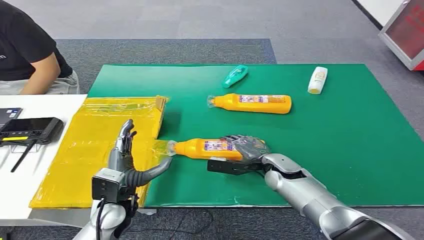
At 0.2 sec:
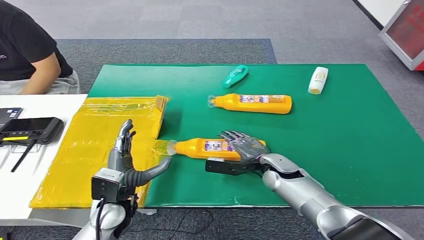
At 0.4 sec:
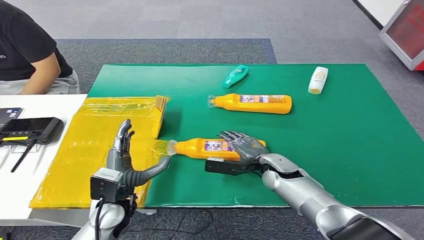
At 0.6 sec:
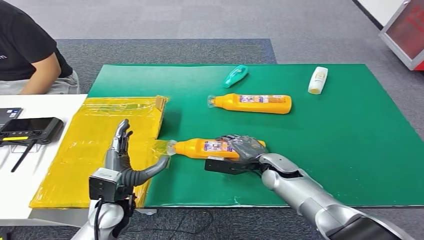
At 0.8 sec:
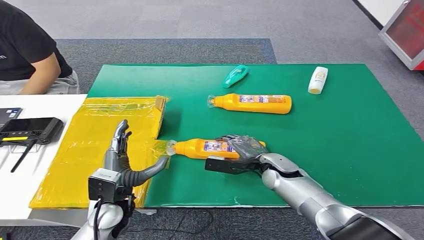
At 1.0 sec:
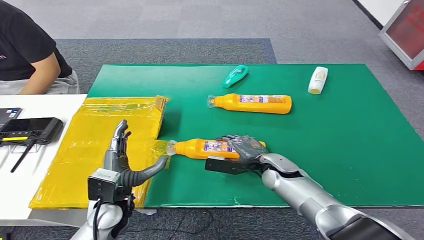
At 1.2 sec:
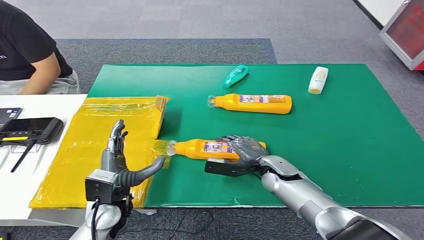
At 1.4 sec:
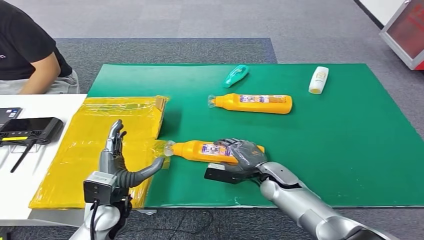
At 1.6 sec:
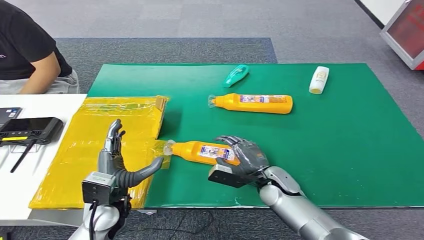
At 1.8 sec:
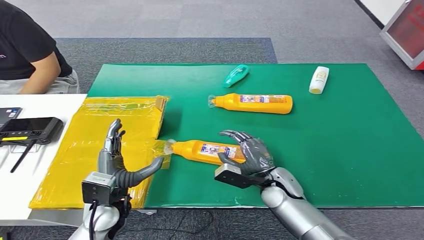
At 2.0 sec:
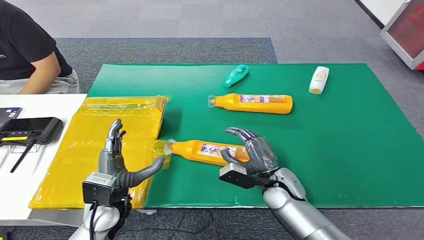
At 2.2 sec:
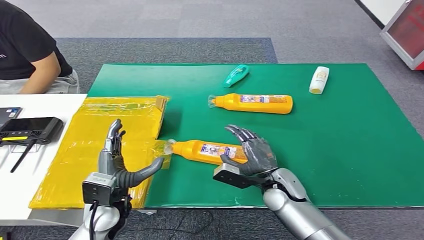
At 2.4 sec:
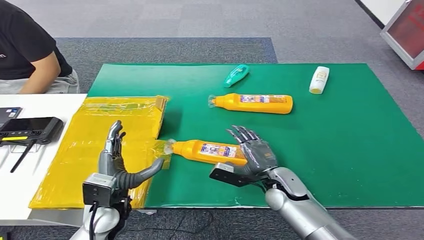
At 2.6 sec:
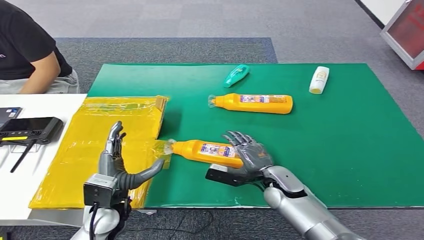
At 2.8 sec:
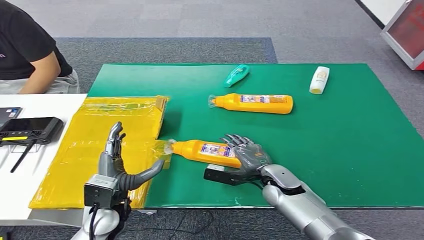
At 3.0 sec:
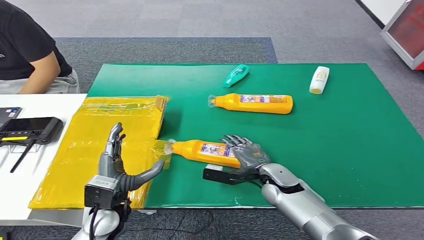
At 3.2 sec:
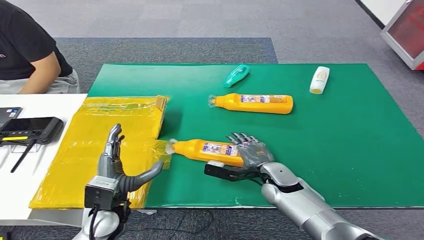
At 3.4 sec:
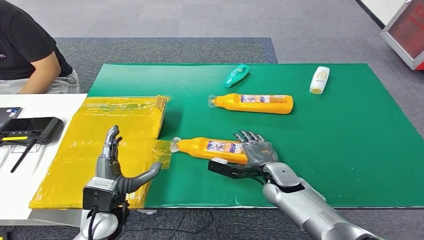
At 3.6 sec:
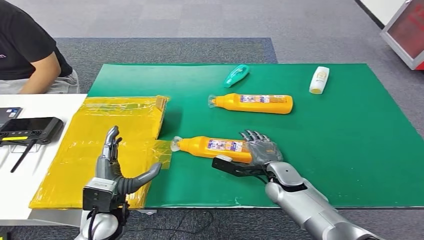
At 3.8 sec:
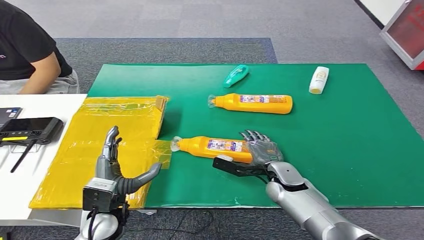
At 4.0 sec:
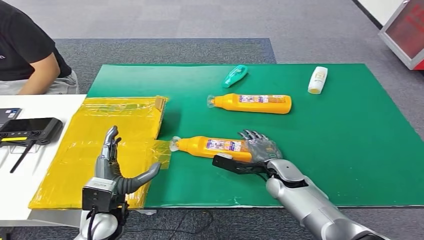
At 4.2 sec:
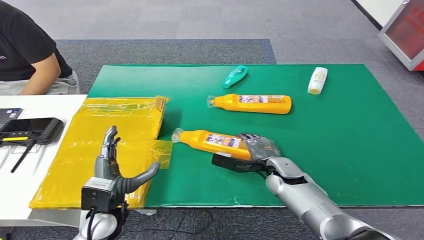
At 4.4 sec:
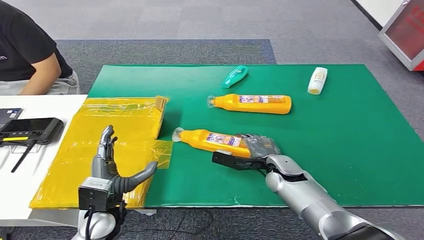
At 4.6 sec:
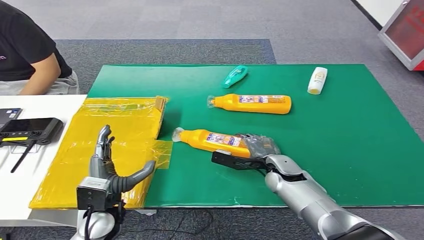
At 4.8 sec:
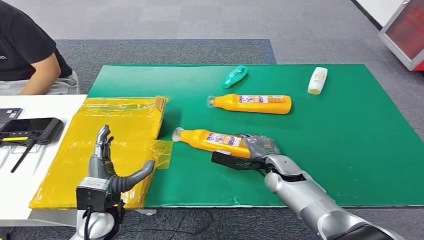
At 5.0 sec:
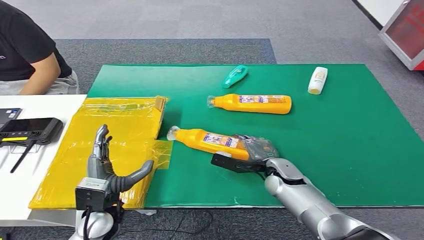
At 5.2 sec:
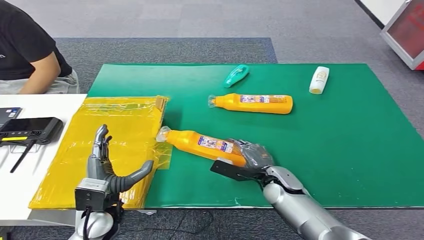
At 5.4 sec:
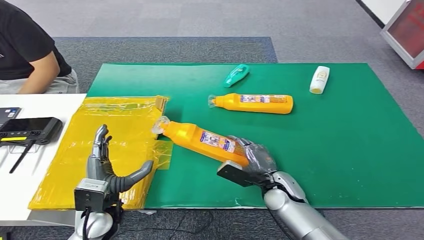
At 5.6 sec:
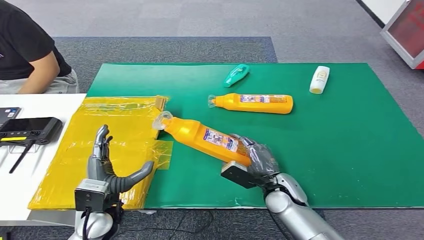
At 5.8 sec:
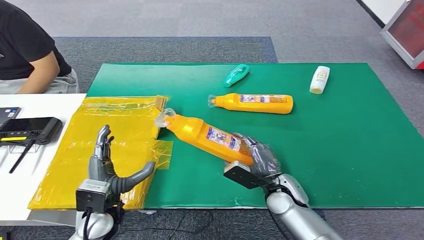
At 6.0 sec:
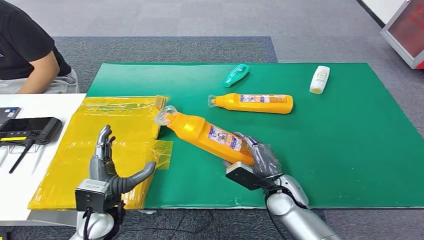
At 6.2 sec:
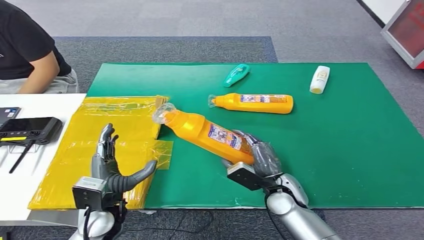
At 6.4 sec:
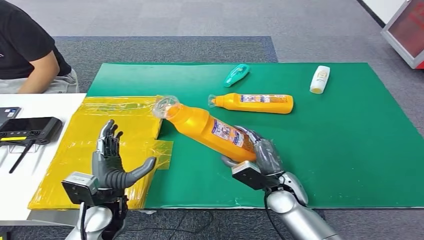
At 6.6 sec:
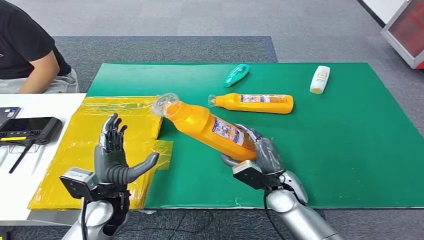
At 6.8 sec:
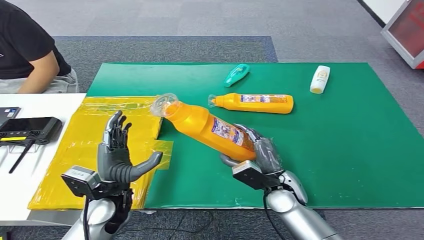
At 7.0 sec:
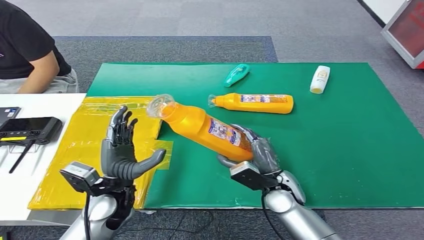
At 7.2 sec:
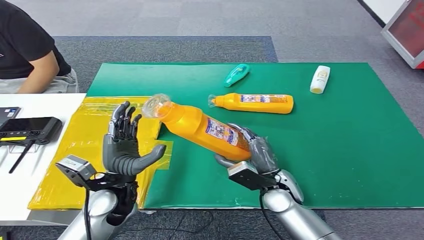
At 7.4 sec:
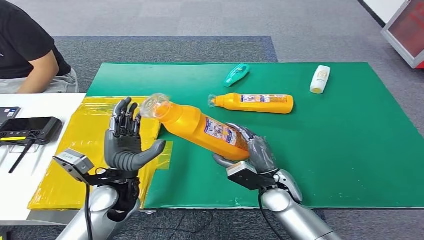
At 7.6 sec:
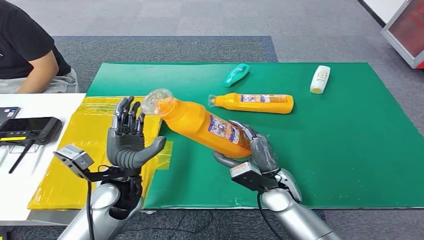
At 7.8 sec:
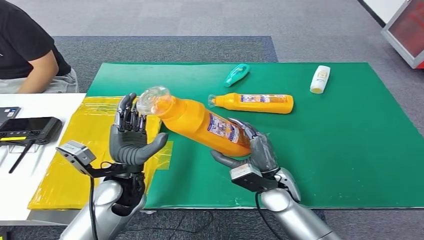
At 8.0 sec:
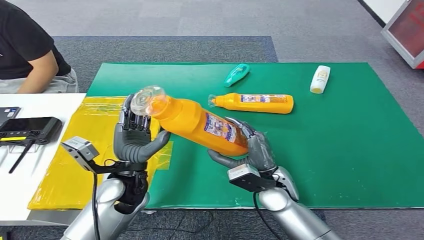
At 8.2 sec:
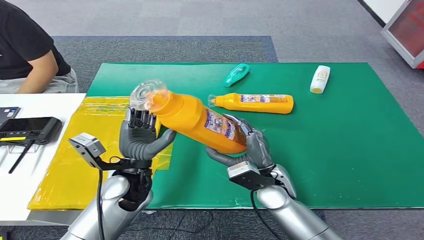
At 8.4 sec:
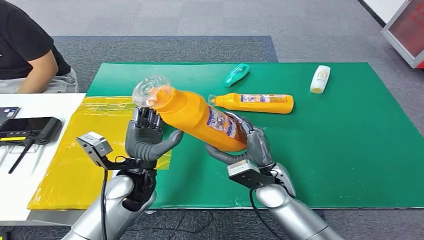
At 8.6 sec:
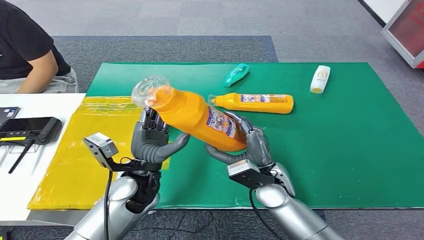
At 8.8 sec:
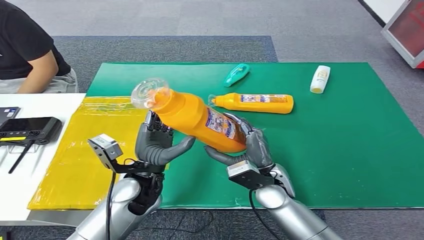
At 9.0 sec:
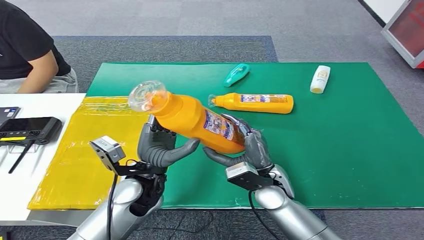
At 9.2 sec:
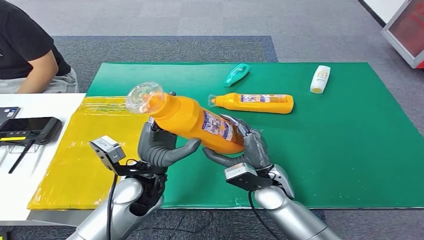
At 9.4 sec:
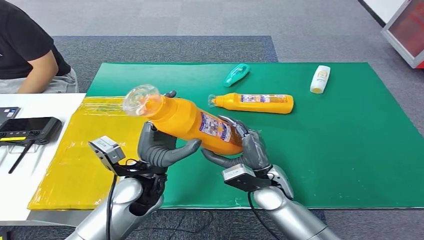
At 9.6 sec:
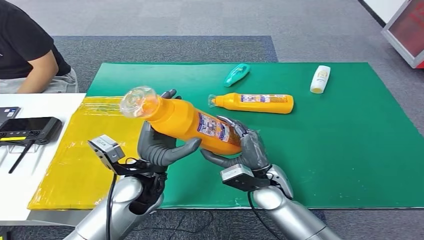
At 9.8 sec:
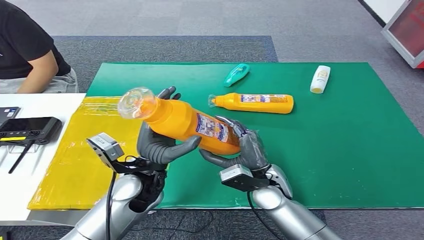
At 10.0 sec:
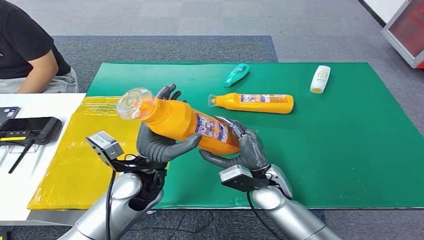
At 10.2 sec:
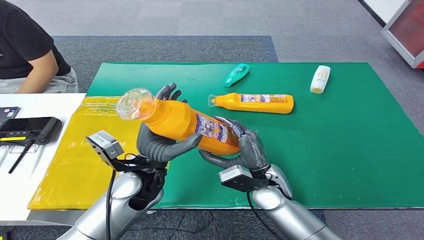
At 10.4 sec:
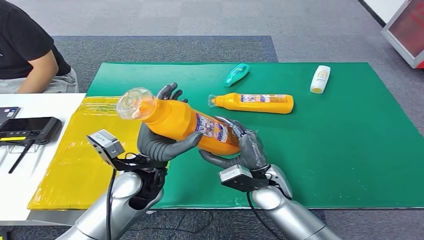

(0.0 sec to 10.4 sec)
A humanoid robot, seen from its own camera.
Step, 0.0 sec - 7.0 sec: Pick up the bottle from the table.
3.0 sec - 4.4 sec: The hands make only small movements.
4.4 sec - 6.0 sec: The right hand is displaced backward by about 5 cm.
6.0 sec - 7.4 sec: The left hand shifts roughly 5 cm upward.
7.4 sec - 9.0 sec: The left hand shifts some 5 cm to the right.
9.0 sec - 10.4 sec: The hands make only small movements.

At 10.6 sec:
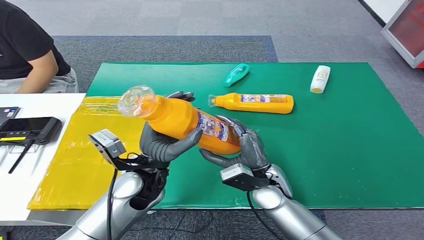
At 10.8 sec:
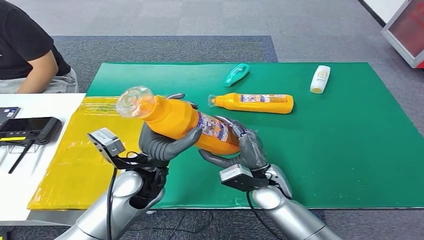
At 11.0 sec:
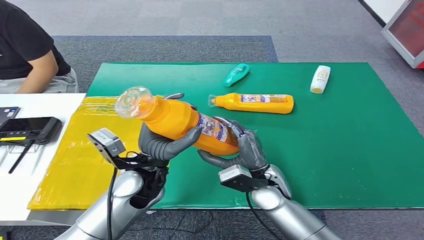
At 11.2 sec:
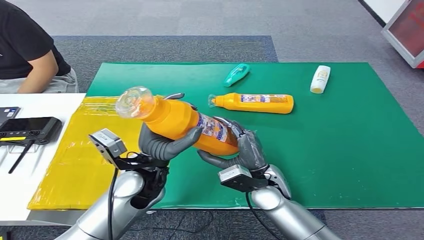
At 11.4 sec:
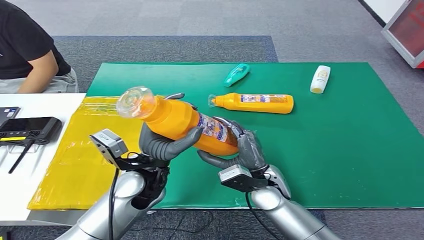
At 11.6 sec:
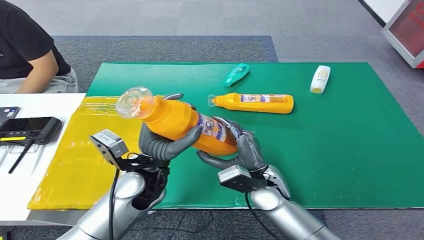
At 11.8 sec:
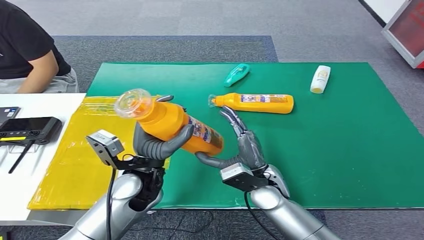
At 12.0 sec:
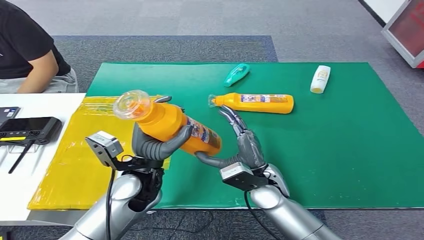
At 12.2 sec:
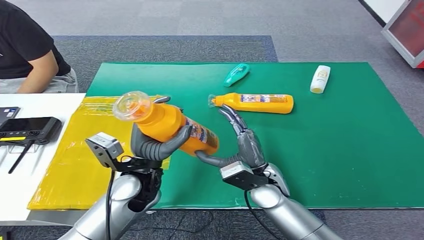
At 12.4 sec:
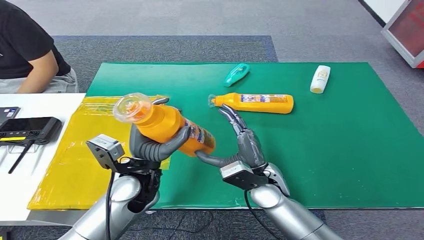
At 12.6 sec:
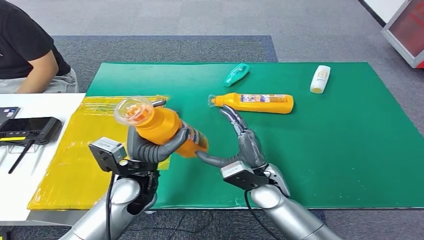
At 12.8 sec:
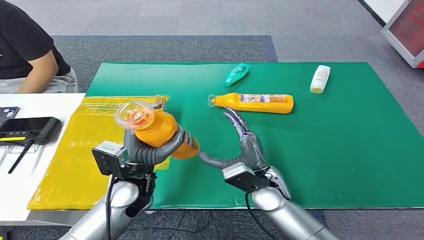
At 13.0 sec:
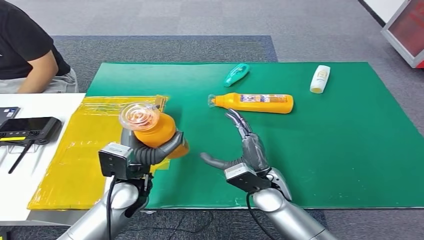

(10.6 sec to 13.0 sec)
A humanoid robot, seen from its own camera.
Step, 10.6 sec - 13.0 sec: Turn the bottle to the front side.
10.6 sec - 11.8 sec: The hands move only a little.
